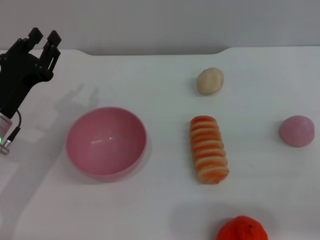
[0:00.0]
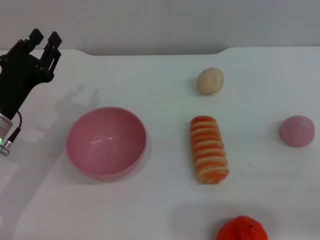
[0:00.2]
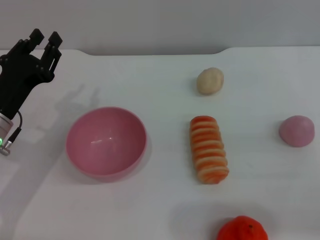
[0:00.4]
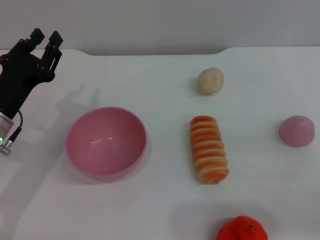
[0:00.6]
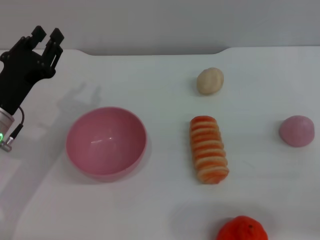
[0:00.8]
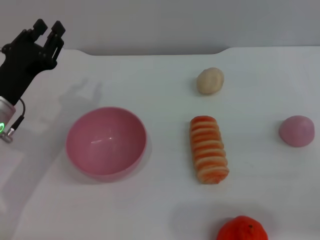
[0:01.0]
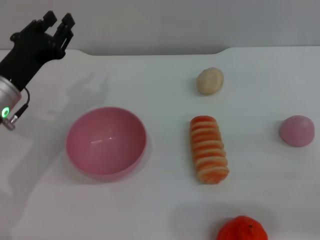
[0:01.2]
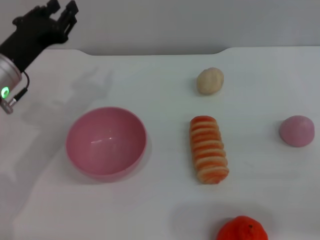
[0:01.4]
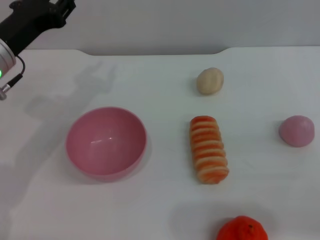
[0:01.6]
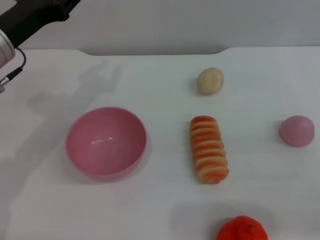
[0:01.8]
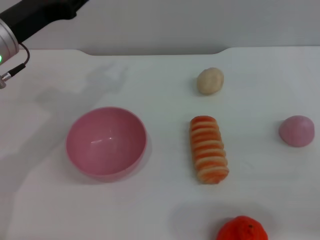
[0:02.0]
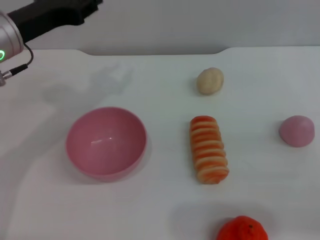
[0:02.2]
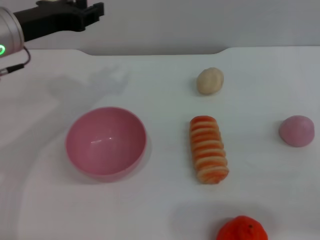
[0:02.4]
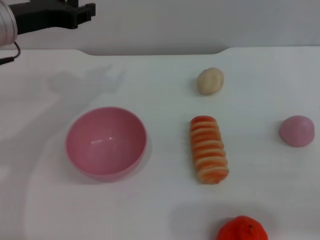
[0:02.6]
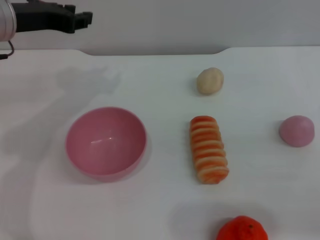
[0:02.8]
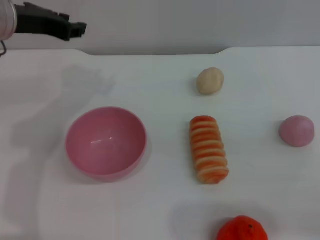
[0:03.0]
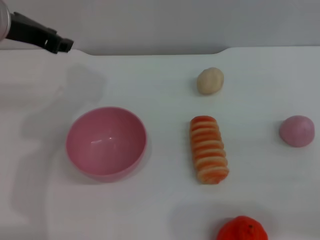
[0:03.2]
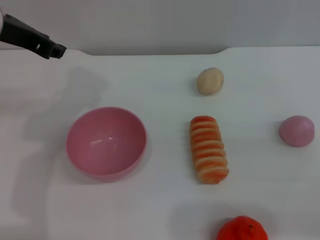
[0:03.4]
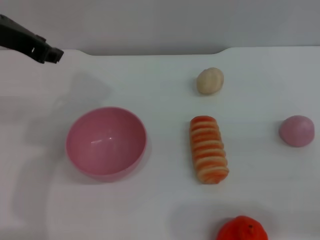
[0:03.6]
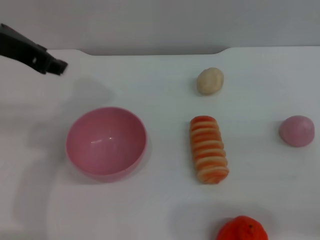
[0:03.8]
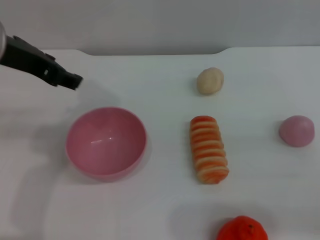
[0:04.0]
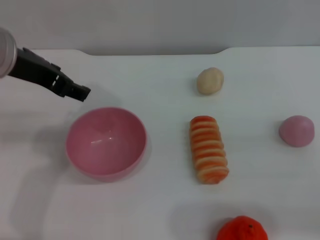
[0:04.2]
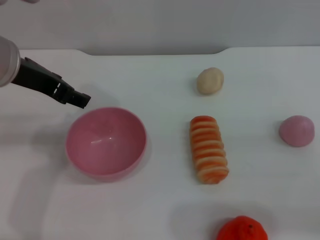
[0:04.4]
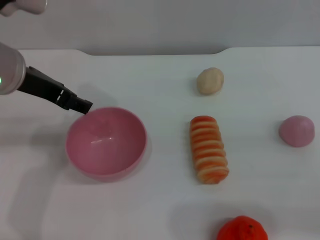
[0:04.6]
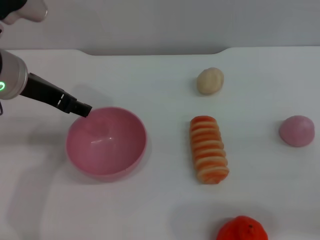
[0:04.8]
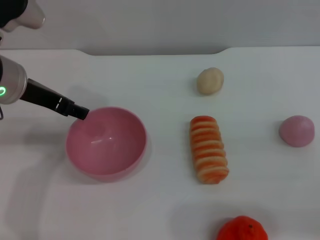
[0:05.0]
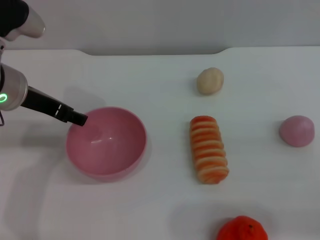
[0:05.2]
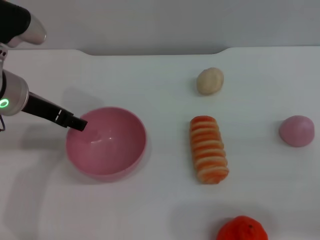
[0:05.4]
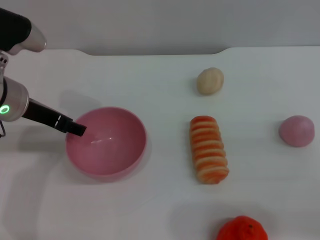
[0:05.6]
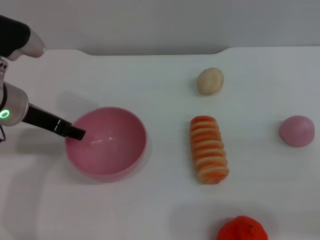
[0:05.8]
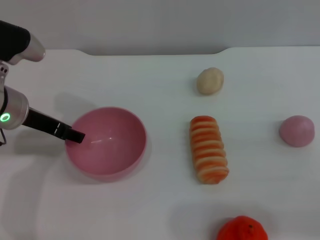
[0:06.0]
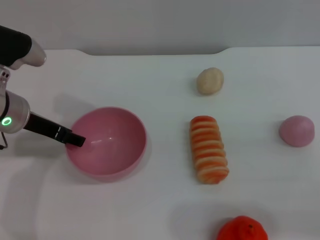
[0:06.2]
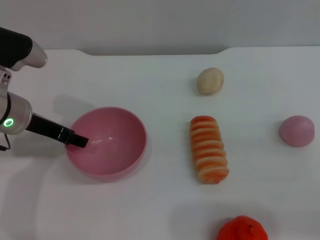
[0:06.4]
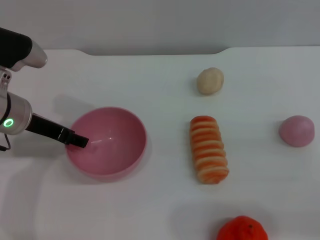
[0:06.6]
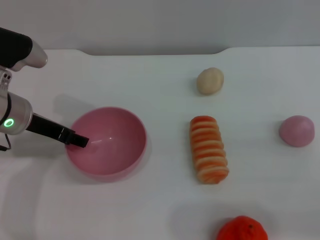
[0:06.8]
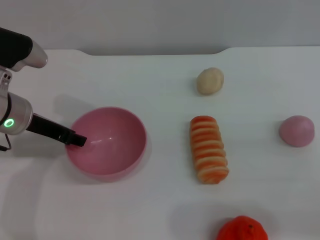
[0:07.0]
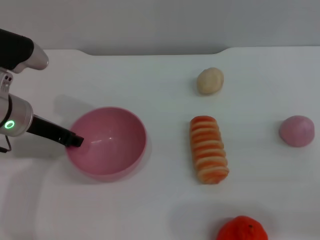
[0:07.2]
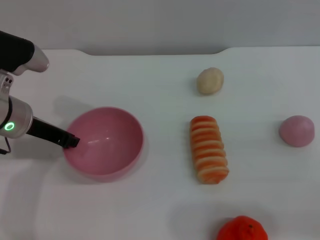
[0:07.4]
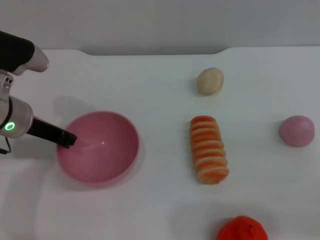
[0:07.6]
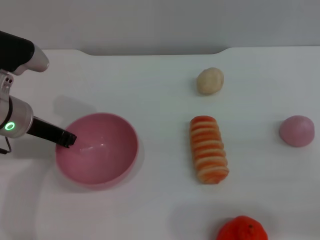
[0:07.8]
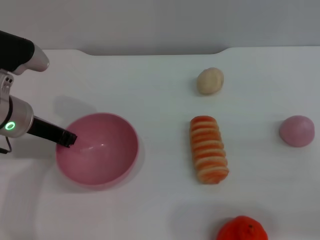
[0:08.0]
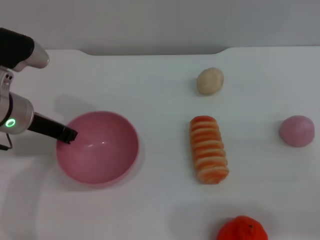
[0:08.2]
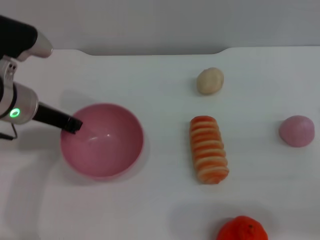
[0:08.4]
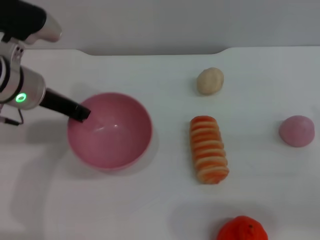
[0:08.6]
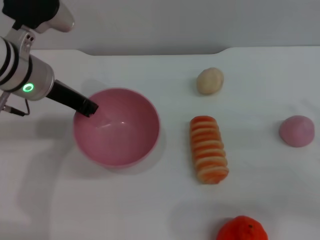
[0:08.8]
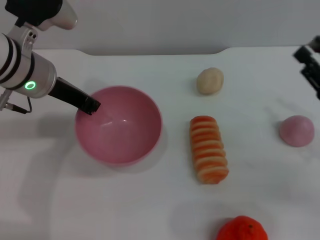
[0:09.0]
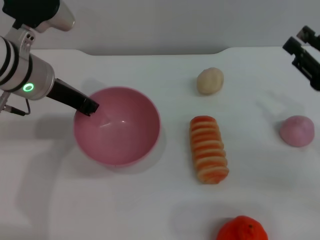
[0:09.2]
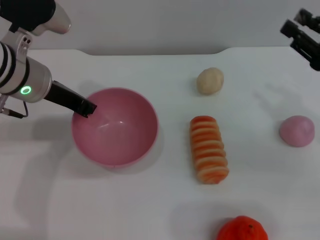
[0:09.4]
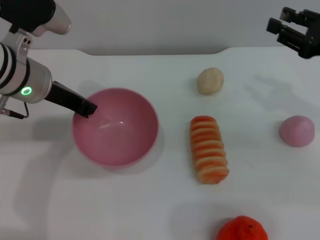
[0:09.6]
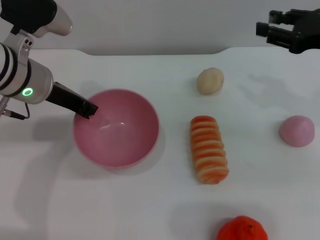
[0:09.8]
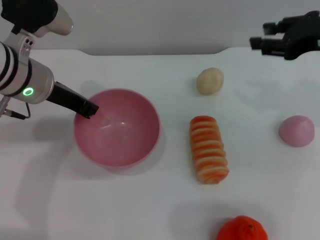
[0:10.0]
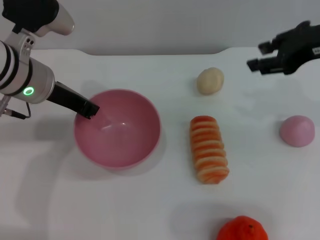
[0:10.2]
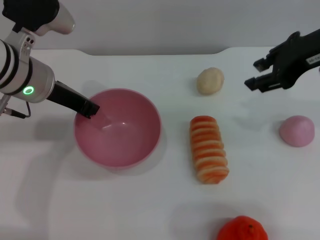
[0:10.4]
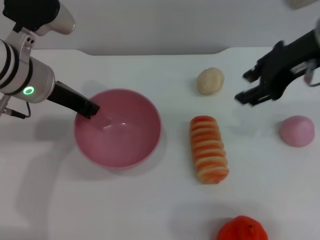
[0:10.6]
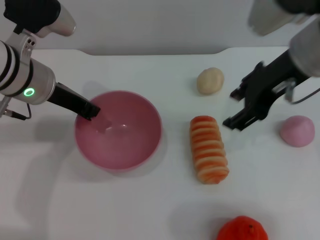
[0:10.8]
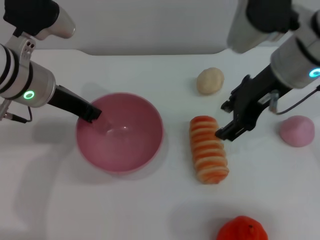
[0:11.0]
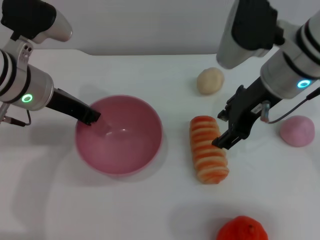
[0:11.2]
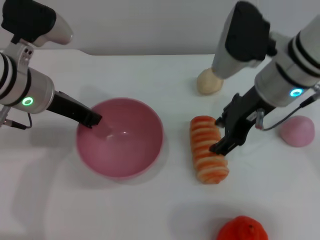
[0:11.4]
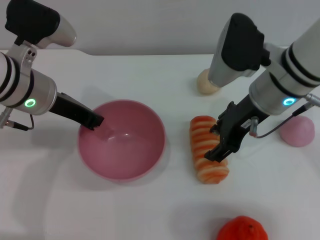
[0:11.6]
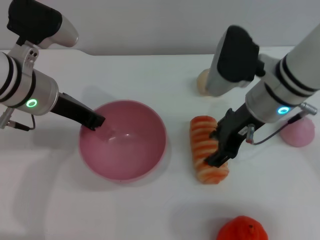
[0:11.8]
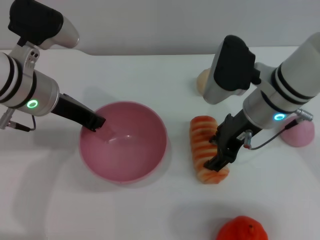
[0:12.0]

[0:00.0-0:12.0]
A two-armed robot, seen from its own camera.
Task of the whole recording: put the bread into the pink bowl and pour it out repeatedly.
Step, 0:00.0 to 0:09.6: Pick up the bowl with the left gripper.
0:00.0 to 0:01.6: The left gripper is displaced upward and forward by approximately 10 cm.
0:01.6 to 0:03.0: The left gripper travels upward by some 5 cm.
0:03.0 to 0:04.4: The left gripper is displaced backward by about 5 cm, and opens its fingers.
0:04.4 to 0:06.0: The left gripper moves downward, roughly 10 cm.
0:06.0 to 0:07.6: The left gripper closes.
0:07.6 to 0:09.0: The left gripper heads upward, covering roughly 5 cm; the right gripper changes place by about 5 cm.
0:09.0 to 0:10.4: The right gripper travels upward, forward and to the left by some 20 cm.
0:10.4 to 0:12.0: The right gripper shifts about 15 cm downward and to the left.

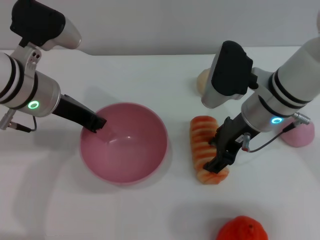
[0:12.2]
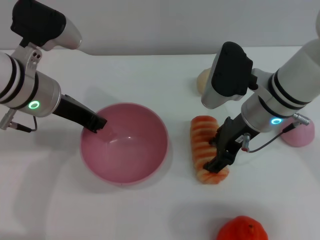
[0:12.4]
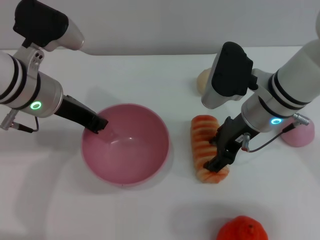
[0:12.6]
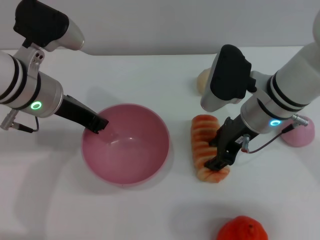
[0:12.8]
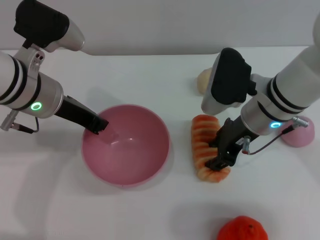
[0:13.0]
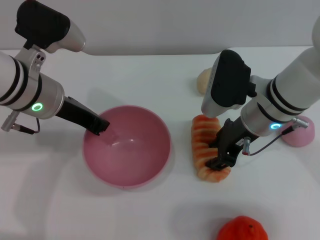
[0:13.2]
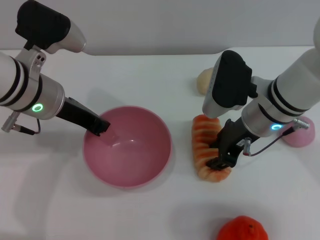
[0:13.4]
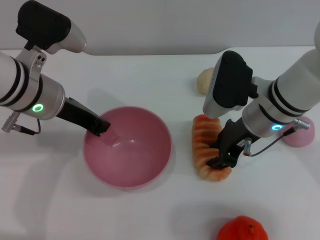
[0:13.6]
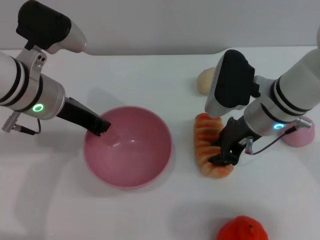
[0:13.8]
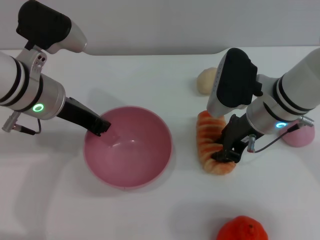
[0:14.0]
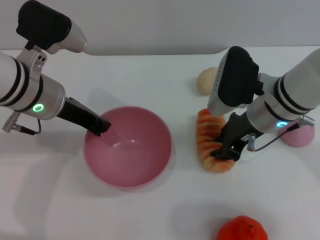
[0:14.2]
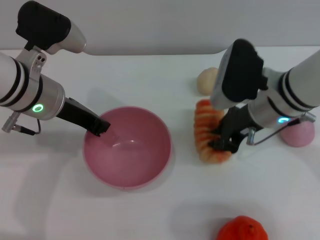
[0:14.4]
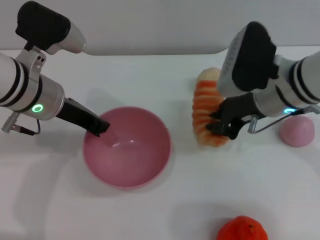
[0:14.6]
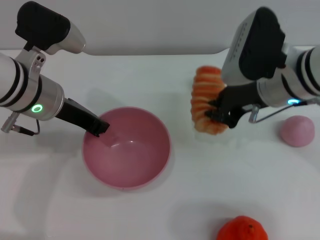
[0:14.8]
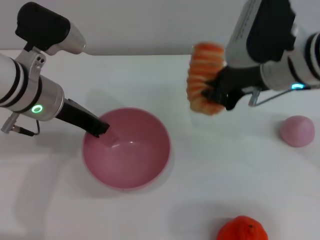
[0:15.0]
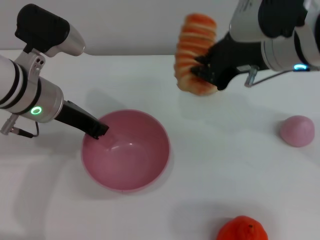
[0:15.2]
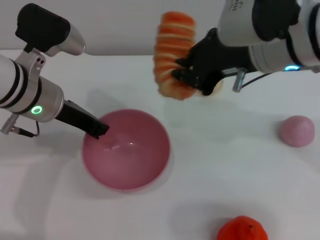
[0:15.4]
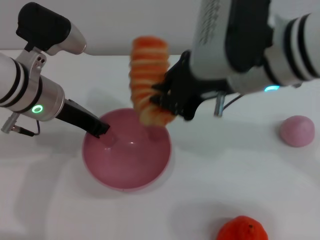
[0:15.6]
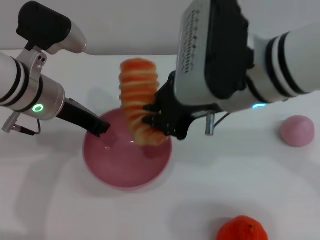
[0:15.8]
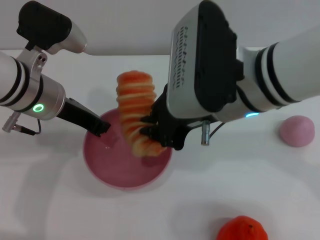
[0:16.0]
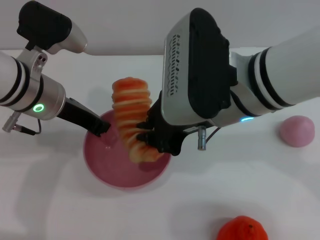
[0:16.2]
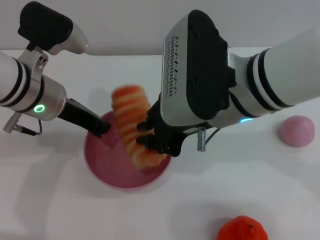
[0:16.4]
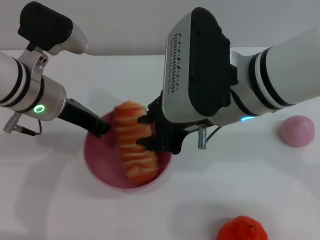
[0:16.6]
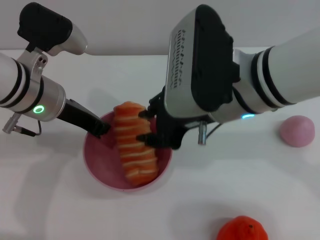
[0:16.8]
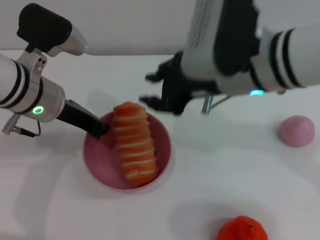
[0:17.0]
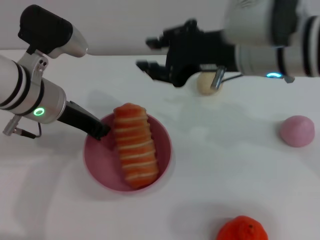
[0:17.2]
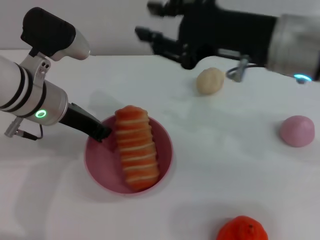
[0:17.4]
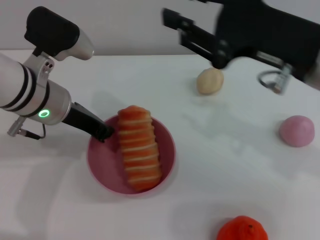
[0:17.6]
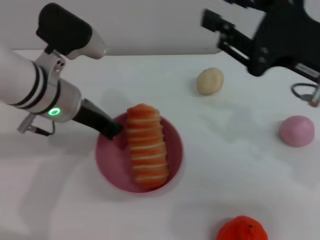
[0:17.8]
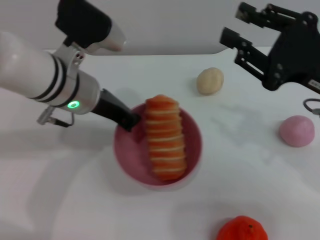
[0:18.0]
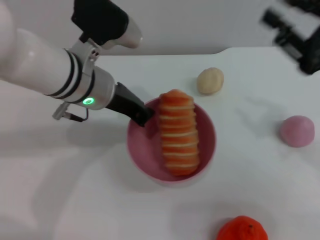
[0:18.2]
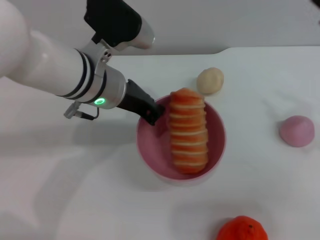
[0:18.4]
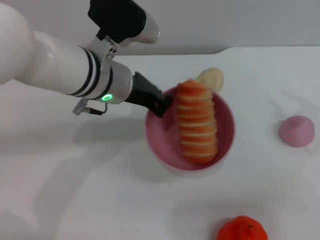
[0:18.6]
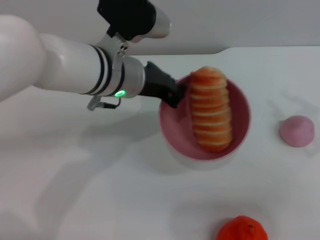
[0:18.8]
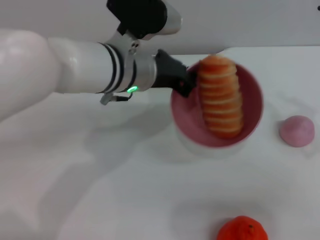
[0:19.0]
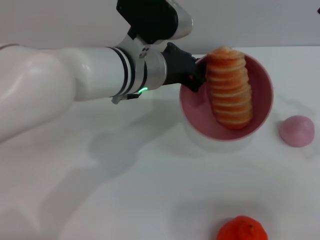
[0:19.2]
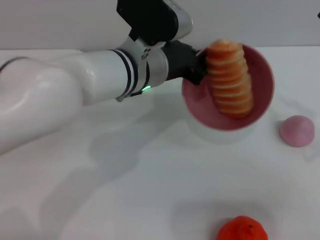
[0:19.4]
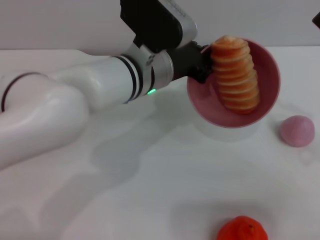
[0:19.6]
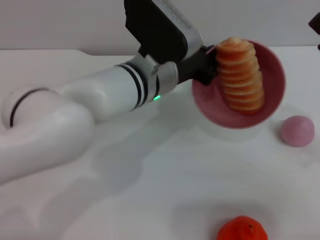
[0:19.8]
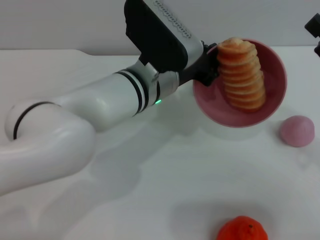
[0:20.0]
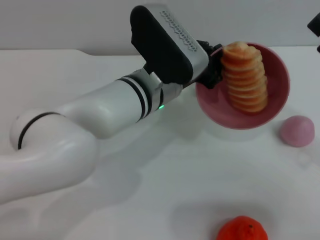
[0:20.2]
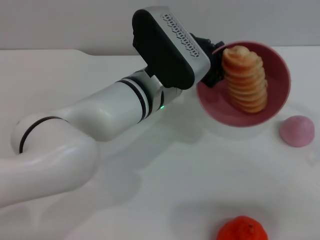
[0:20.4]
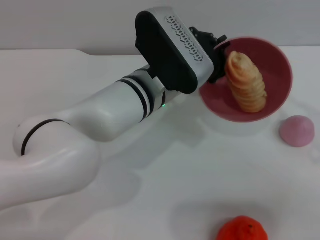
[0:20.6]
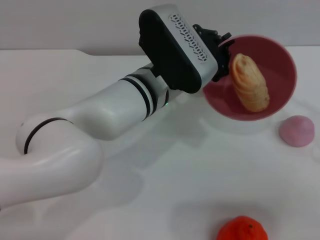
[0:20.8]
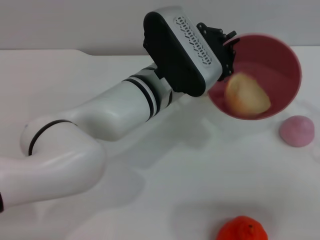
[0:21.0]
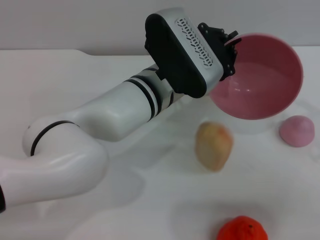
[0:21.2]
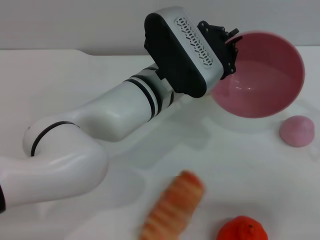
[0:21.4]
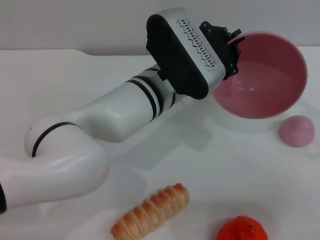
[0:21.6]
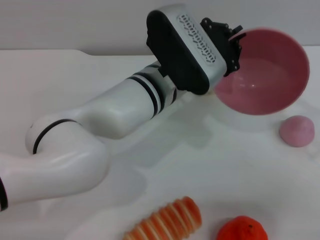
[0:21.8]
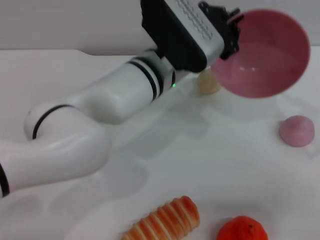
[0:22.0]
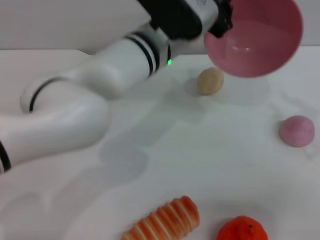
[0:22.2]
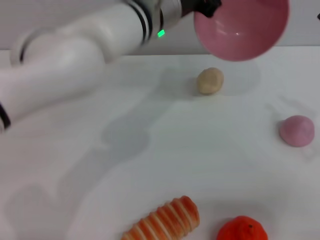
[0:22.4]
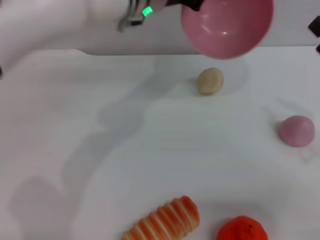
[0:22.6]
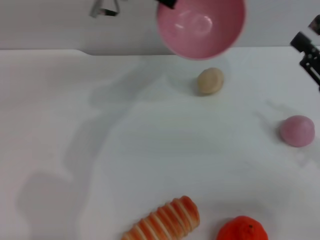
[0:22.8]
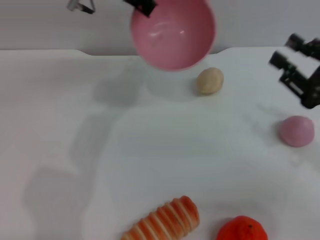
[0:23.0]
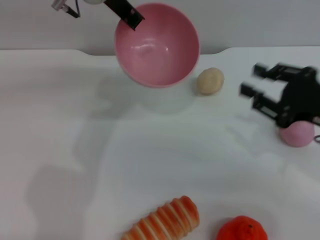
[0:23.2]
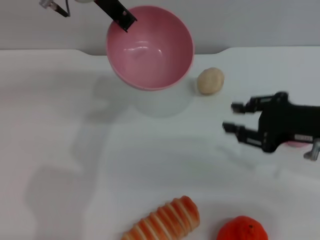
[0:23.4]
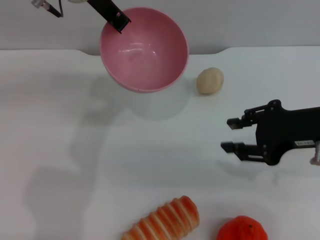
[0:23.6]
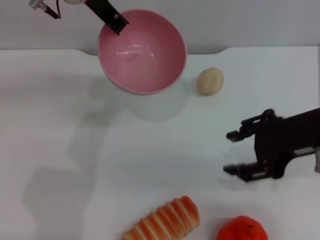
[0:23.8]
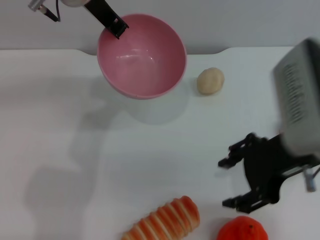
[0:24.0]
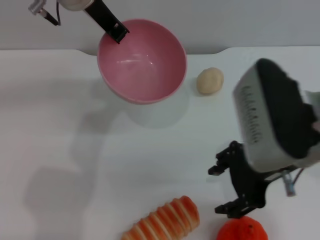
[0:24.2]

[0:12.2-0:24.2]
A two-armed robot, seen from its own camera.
Task of the whole recording: put the bread into the pink bowl and pour it out repeatedly.
Step, 0:12.2 to 0:14.4: Pick up the bread with the right gripper.
Step, 0:14.8 to 0:16.8: Place the bread into the bowl.
Step, 0:17.0 to 0:21.6: Pour the bread out of the bowl.
0:12.2 to 0:13.8: The right gripper closes.
0:13.8 to 0:15.2: The right gripper travels upward by about 10 cm, and closes.
0:15.2 to 0:16.6: The right gripper is displaced to the left and backward by some 10 cm.
0:16.6 to 0:18.2: The left gripper is displaced to the right by approximately 5 cm. The right gripper travels to the right by some 20 cm.
0:18.2 to 0:19.8: The left gripper shifts approximately 10 cm to the right.
0:21.2 to 0:22.6: The left gripper goes roughly 10 cm forward and upward.
0:22.6 to 0:24.2: The right gripper moves to the left, some 15 cm, and opens up. The left gripper moves to the left and upward, about 10 cm.
